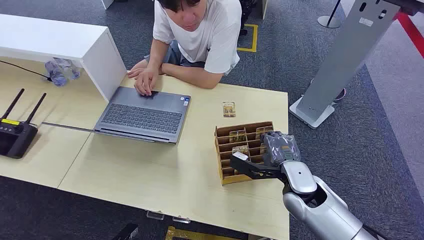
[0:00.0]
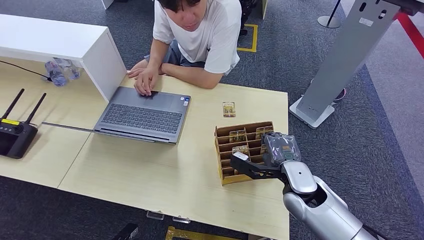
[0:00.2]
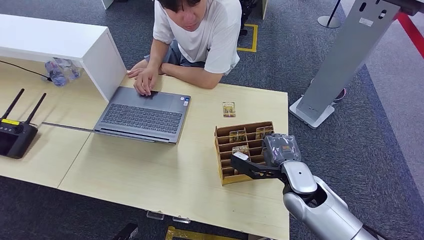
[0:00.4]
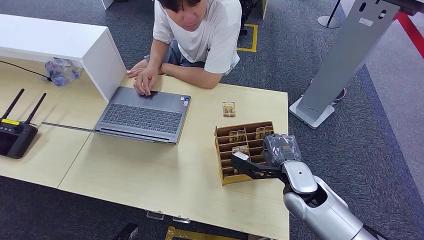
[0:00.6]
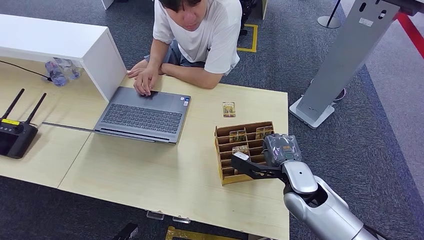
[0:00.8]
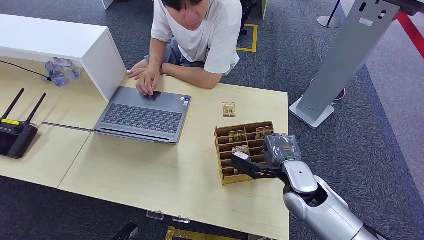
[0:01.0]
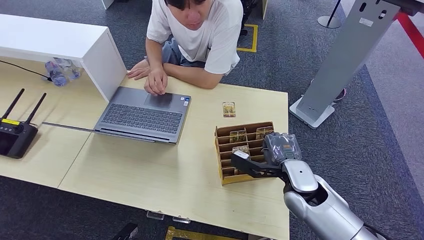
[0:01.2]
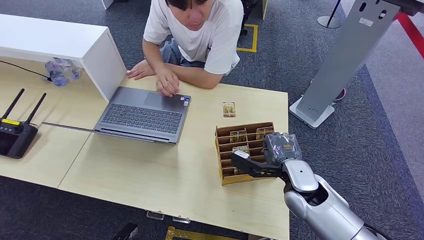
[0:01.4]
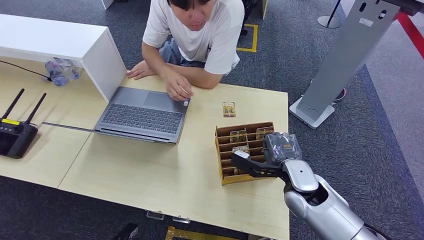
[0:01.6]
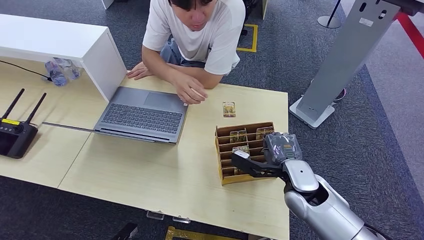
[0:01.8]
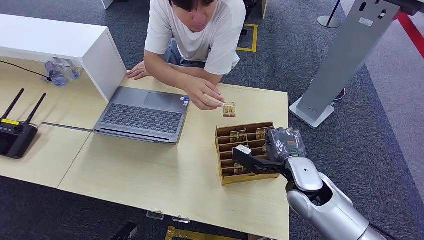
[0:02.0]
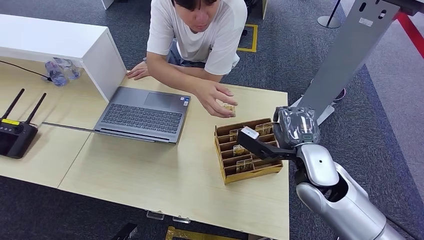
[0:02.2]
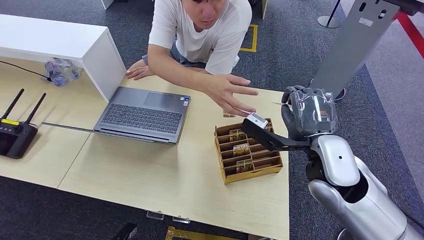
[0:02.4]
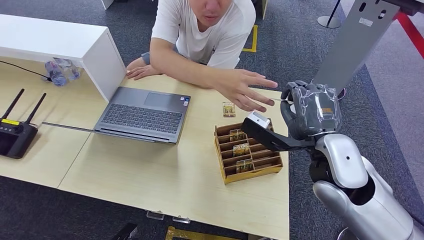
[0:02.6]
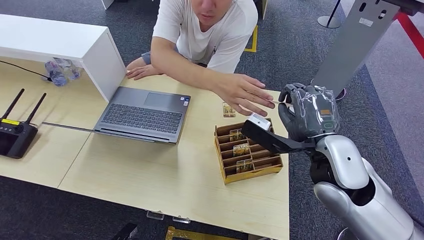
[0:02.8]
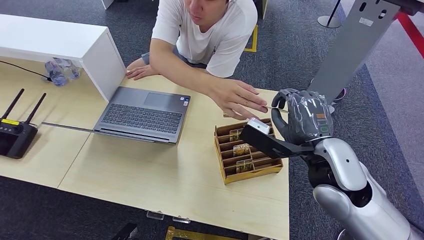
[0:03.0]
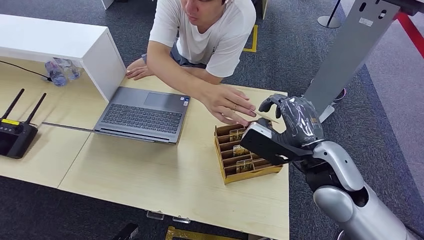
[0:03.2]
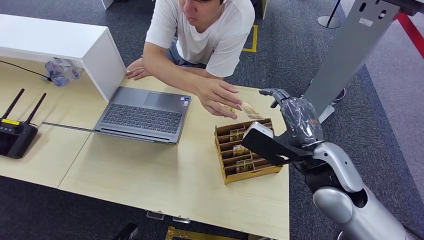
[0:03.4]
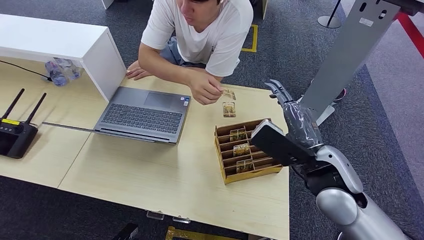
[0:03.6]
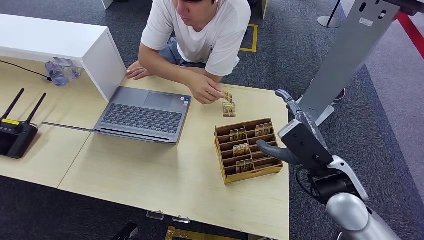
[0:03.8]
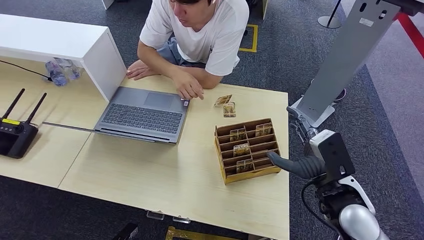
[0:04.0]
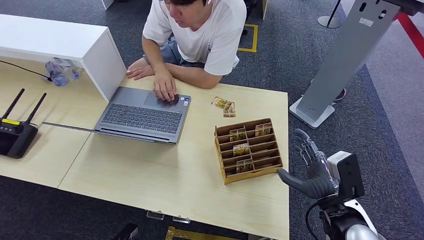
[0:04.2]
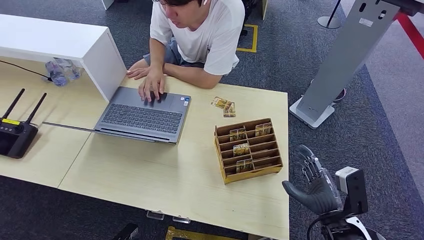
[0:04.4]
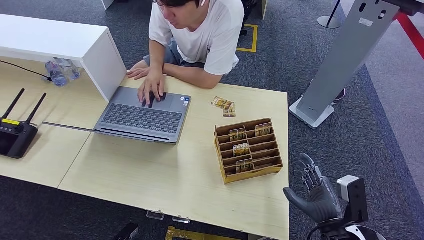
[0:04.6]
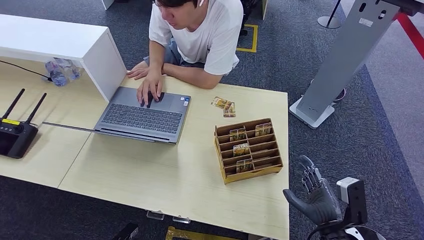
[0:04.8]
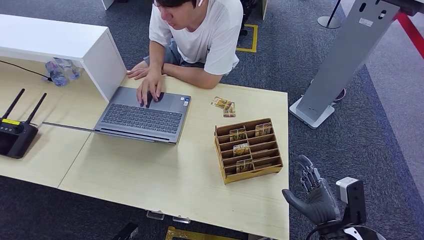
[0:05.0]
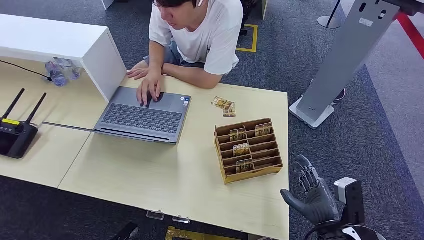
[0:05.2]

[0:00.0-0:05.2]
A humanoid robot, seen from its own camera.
Step, 0:00.0 to 0:02.0: Pick up the key card from the card box.
Step, 0:02.2 to 0:05.0: Hand the key card to the target.
0:01.8 to 0:03.4: The right hand moves upward, about 15 cm.
0:03.4 to 0:05.2: The right hand heads downward, backward and to the right, covering approximately 20 cm.
